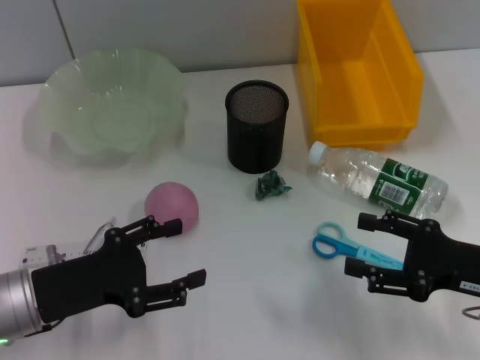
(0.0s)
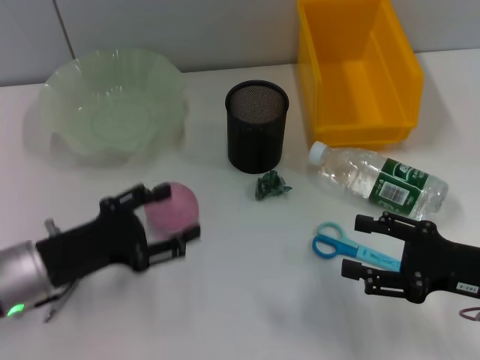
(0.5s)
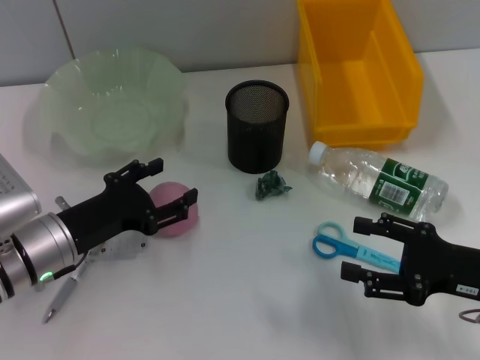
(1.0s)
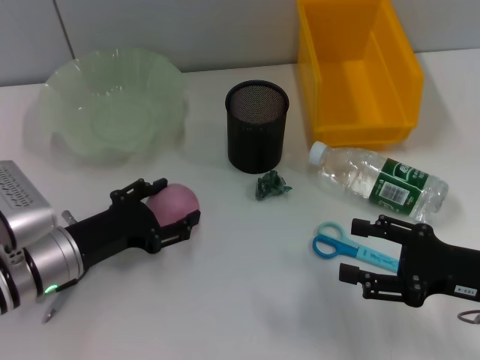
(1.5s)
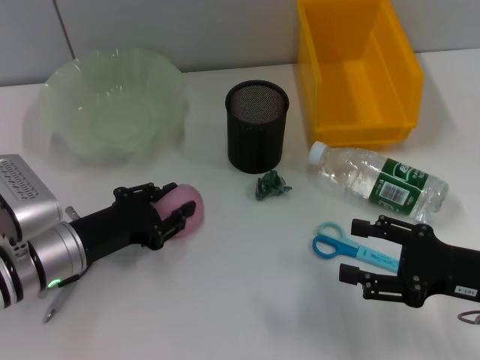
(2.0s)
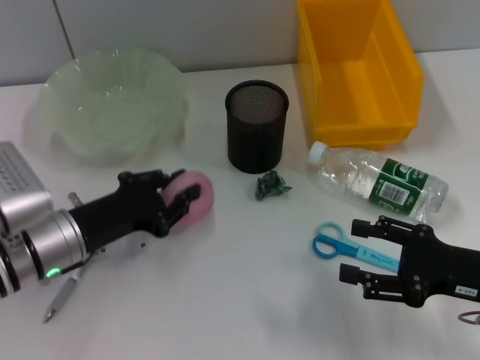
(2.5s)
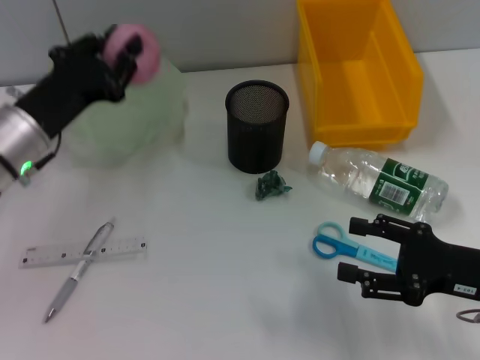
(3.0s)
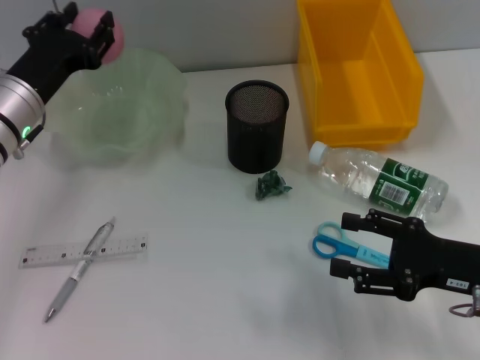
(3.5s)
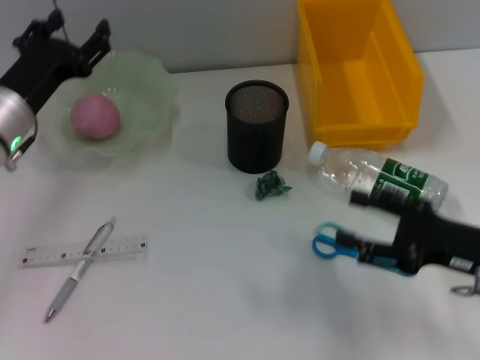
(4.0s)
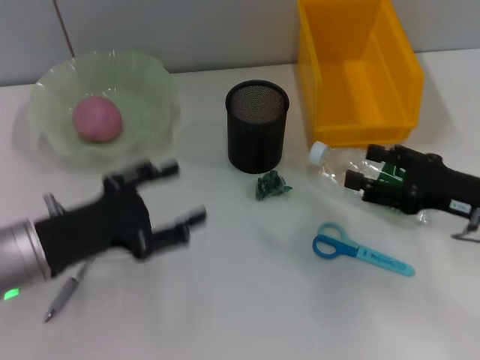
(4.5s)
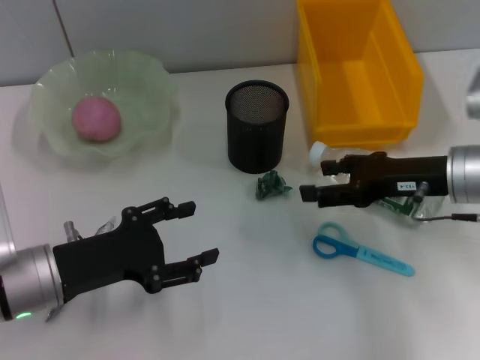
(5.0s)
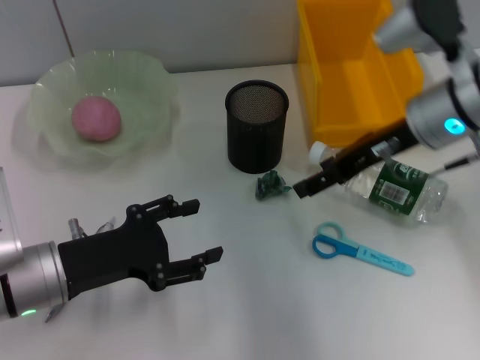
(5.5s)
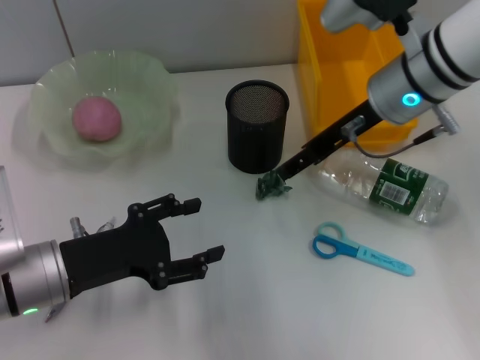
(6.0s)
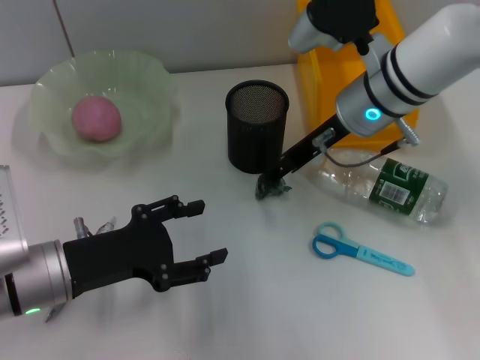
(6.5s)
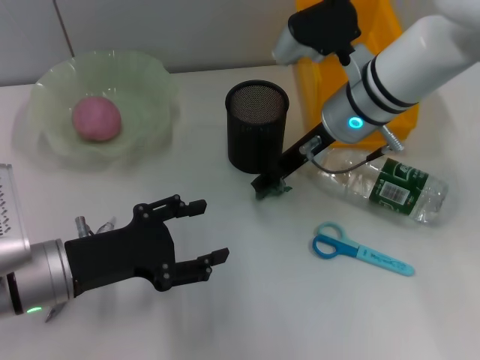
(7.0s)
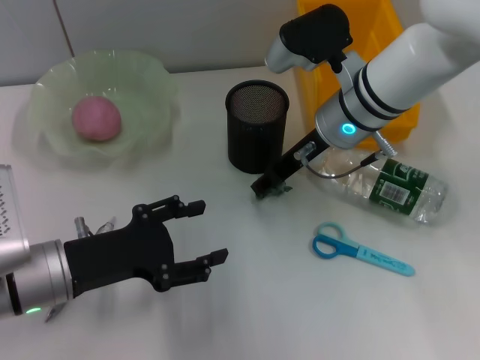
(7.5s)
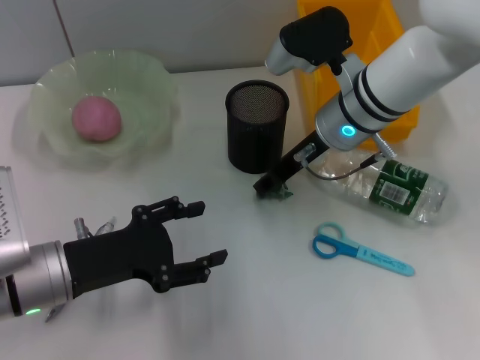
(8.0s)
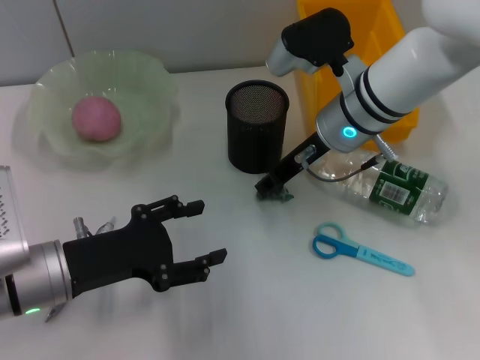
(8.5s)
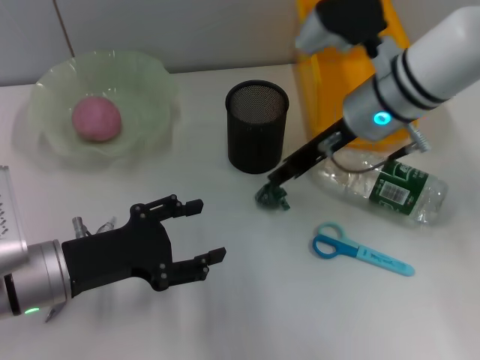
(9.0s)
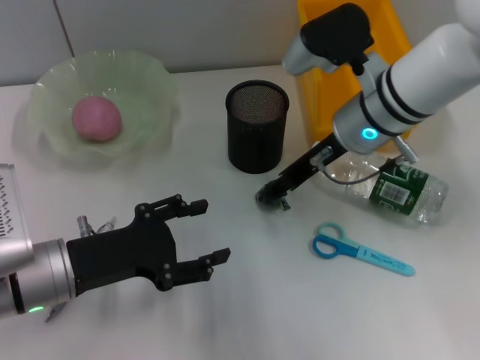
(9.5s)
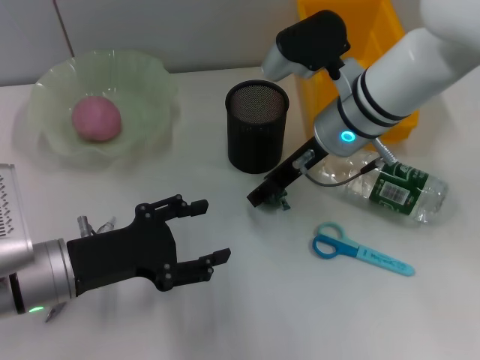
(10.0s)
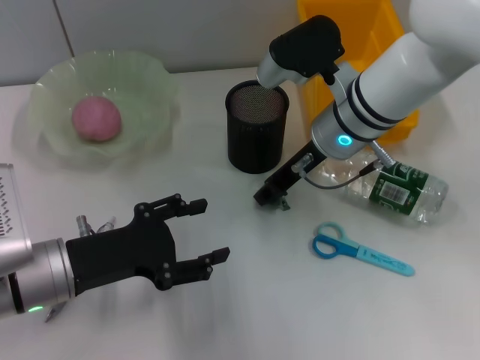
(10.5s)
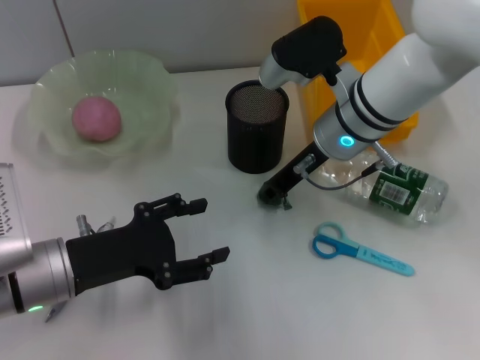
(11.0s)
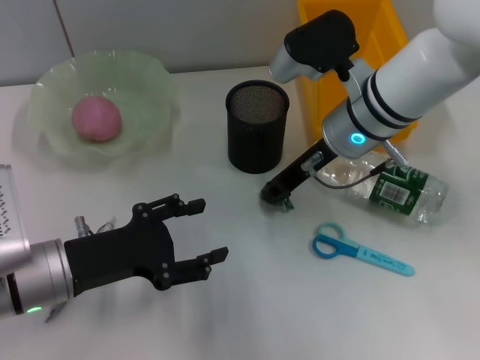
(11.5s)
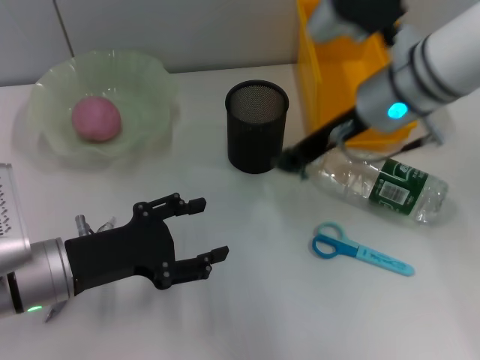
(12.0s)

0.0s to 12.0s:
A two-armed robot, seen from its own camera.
Step, 0.0s to 2.0s: Grab the peach with the left hand.
Step, 2.5s to 4.0s: Place the peach into the fruit bowl with the left hand.
Step, 4.5s to 11.5s: Grab the plastic with the right hand.
0.0s to 2.0s: The left gripper goes roughly 5 cm forward.
2.0s to 4.0s: The left gripper travels forward and upward by about 10 cm, and closes and opens again.
4.0s to 6.0s: The left gripper travels backward by some 10 cm; the right gripper is displaced forward, to the left and upward by roughly 25 cm.
6.0s to 8.0s: The right gripper ends up about 5 cm from where it was.
8.0s to 10.0s: The grippers make only small movements.
10.0s to 12.0s: The right gripper is displaced upward by some 5 cm, and closes its fingers.

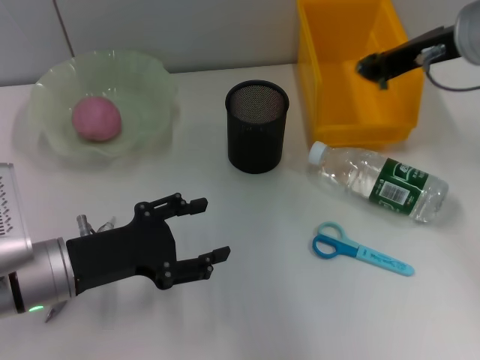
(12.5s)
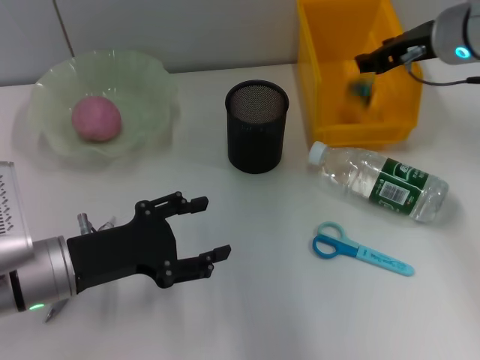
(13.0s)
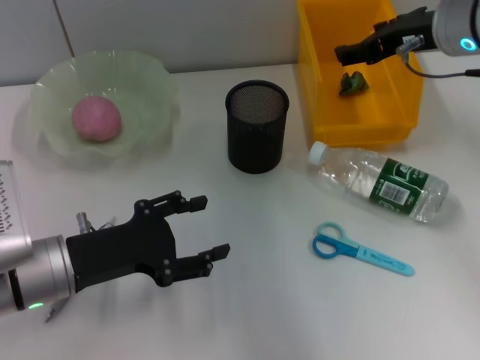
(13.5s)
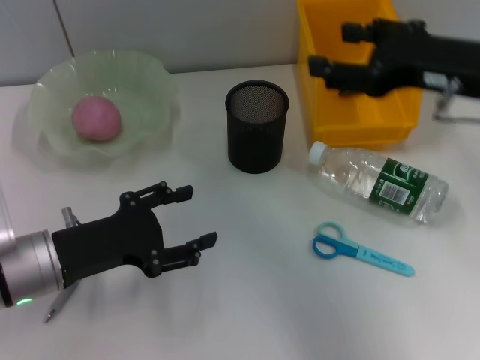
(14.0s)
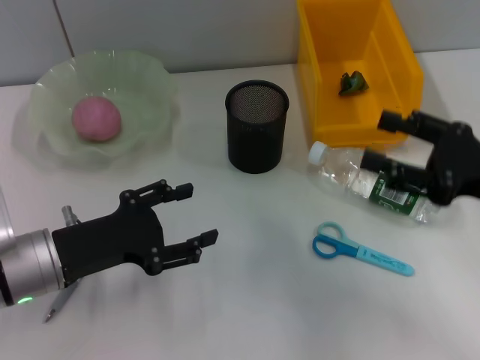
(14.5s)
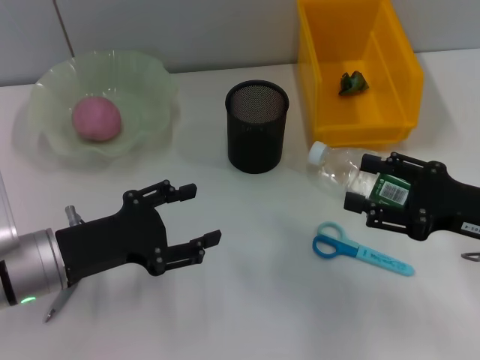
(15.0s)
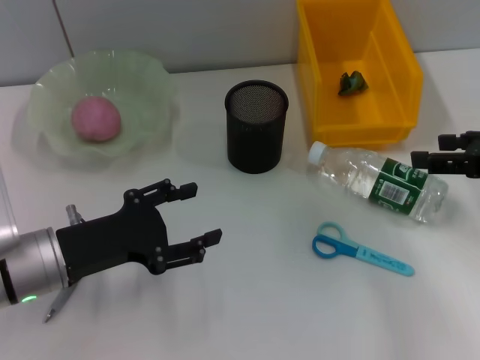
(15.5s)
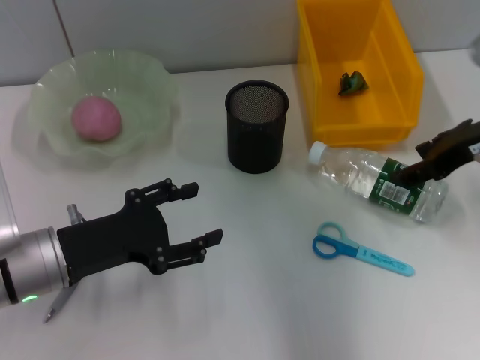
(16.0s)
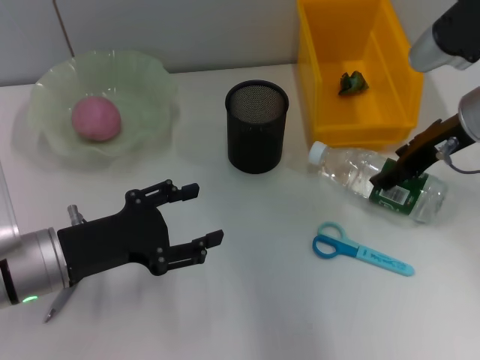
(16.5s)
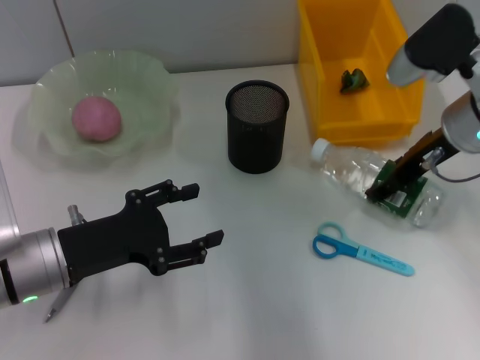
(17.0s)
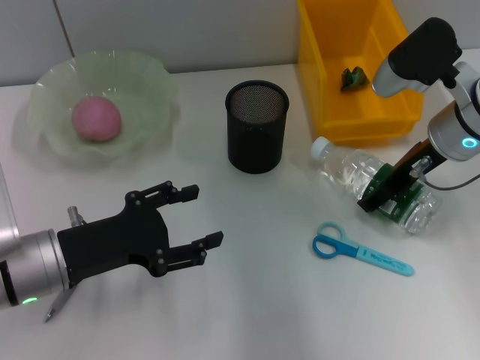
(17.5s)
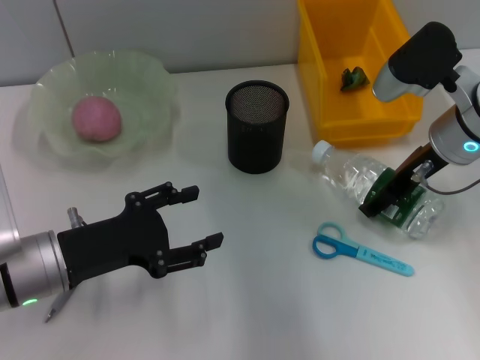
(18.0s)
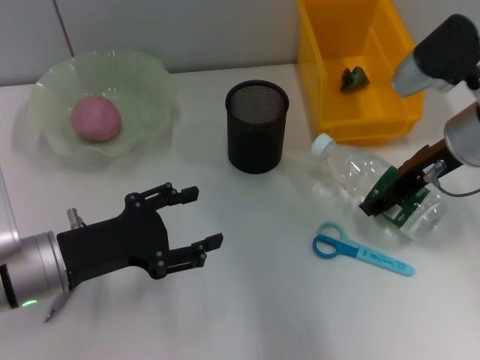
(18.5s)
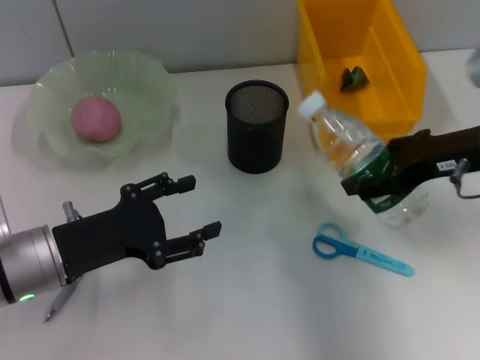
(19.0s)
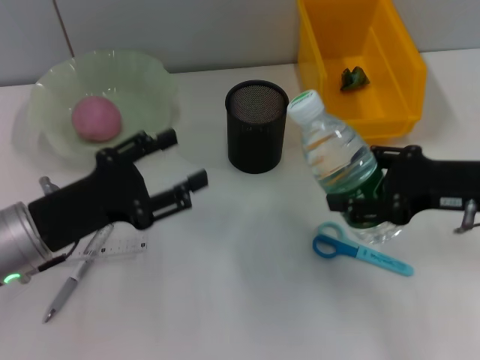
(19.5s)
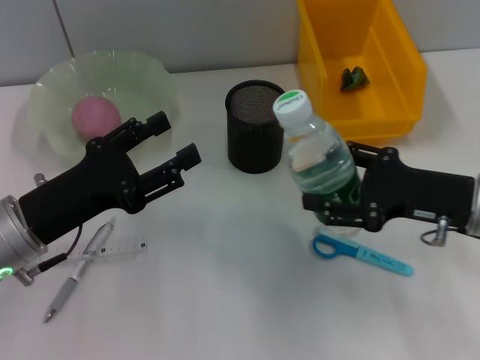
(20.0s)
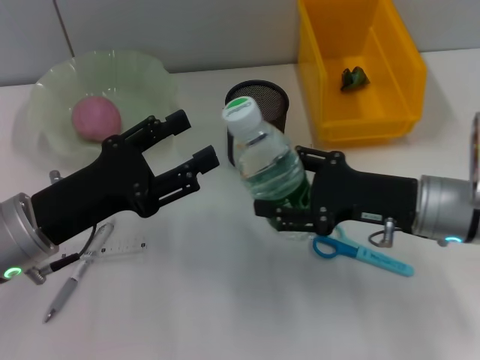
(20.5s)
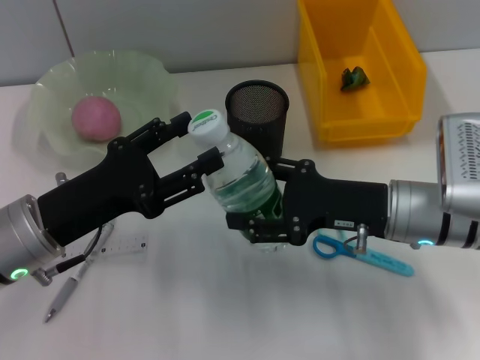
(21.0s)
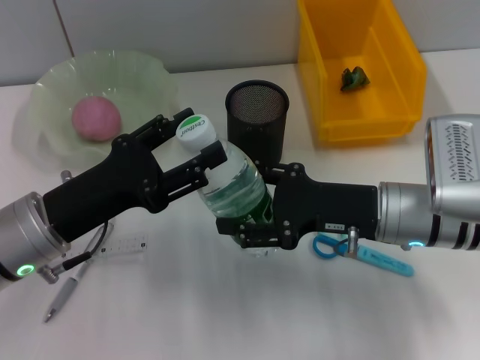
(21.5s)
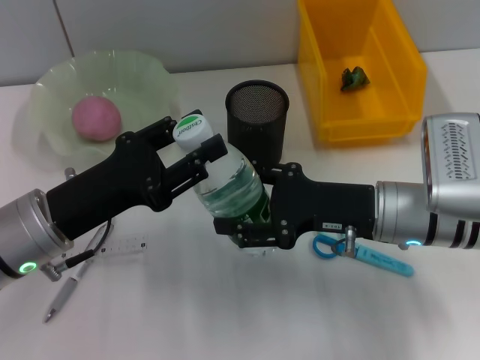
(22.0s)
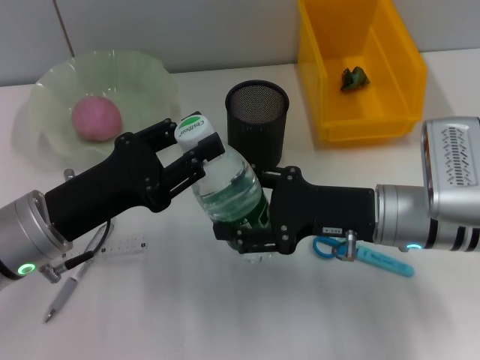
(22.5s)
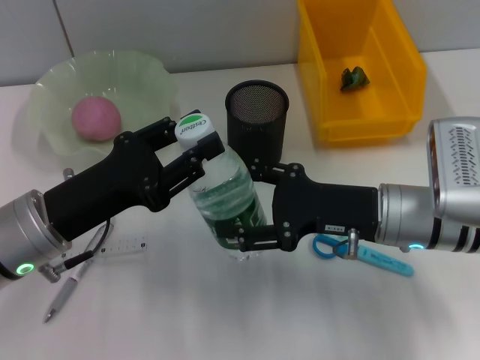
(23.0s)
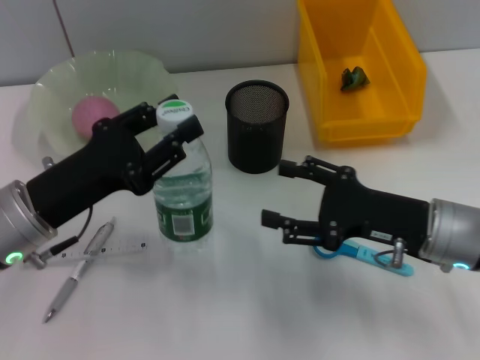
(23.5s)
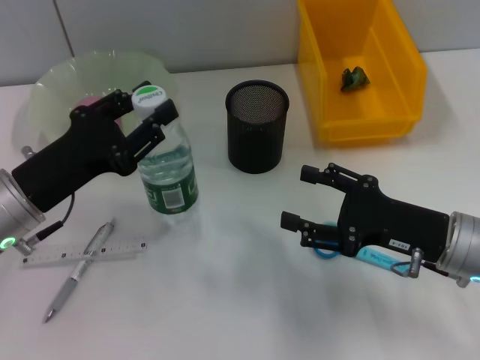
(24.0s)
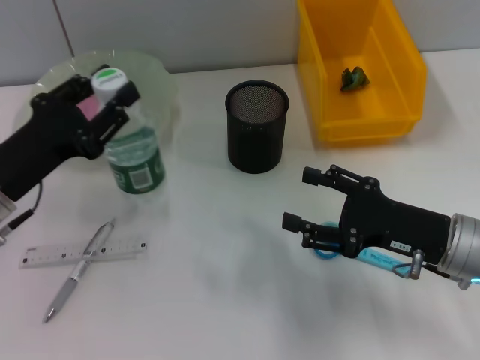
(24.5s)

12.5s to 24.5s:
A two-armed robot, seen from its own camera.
Step, 12.5s to 13.5s: Place the plastic into the trash can with the right hand.
Step, 14.0s to 18.0s: Grab the water bottle with the right hand.
Step, 18.5s to 23.0s: Pass the water bottle from the right hand to the left hand.
12.5s to 14.5s: The right gripper is displaced backward, downward and to the right by about 20 cm, and opens up.
14.5s to 16.5s: The right gripper travels forward and to the left by some 15 cm.
16.5s to 18.5s: There are only small adjustments of the grippers.
18.5s to 20.5s: The right gripper shifts approximately 10 cm downward and backward.
20.5s to 22.5s: The left gripper closes its fingers.
22.5s to 24.5s: The left gripper changes place by roughly 5 cm. The right gripper shifts about 5 cm to the right.

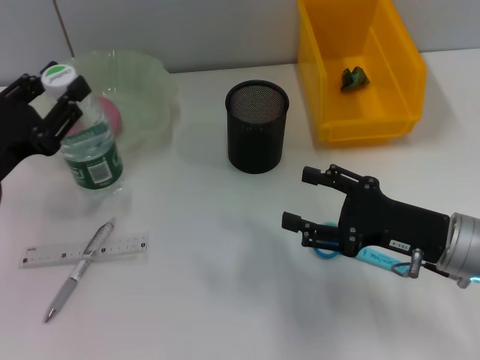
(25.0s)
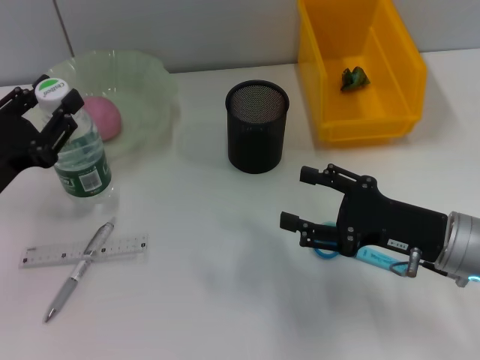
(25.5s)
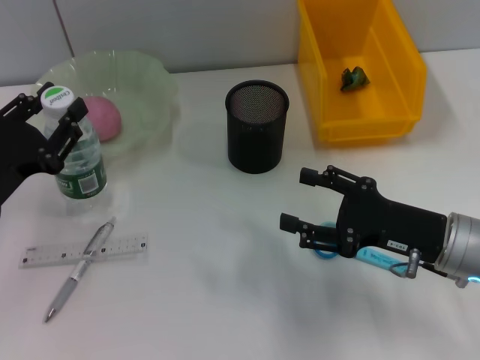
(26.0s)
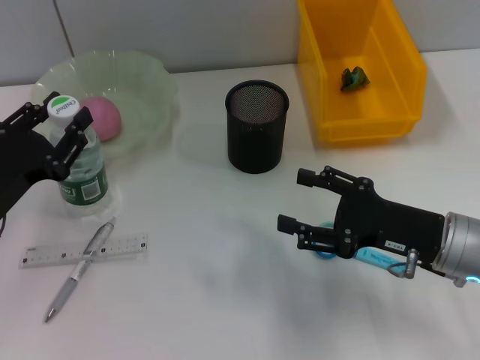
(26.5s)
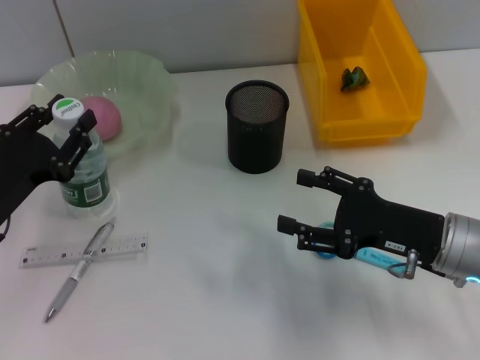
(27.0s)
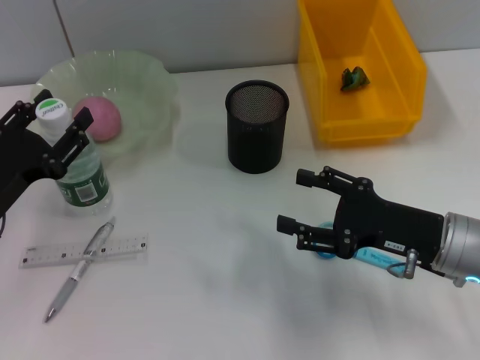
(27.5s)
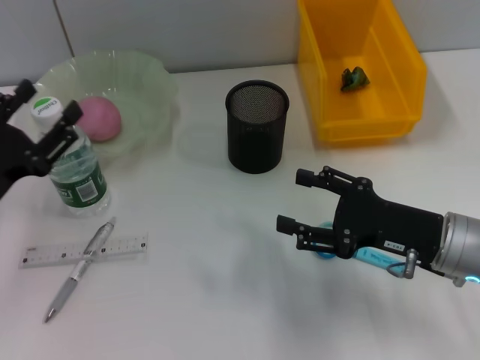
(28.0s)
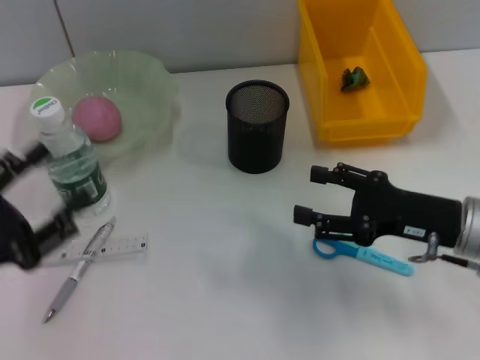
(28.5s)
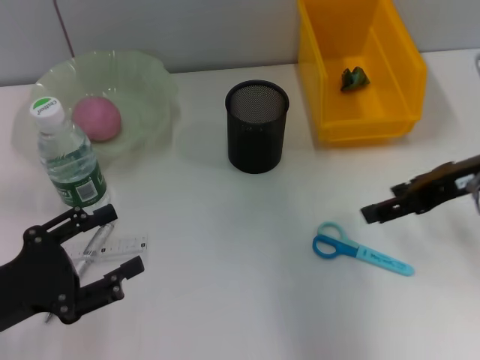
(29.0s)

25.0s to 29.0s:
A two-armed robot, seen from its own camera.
Step, 25.0s to 27.5s: Place the water bottle on the table with the left hand.
25.0s to 27.0s: The grippers move only a little.
27.0s to 29.0s: The left gripper shifts approximately 10 cm backward, and opens. Meanwhile the right gripper is displaced upward and forward by about 15 cm.
